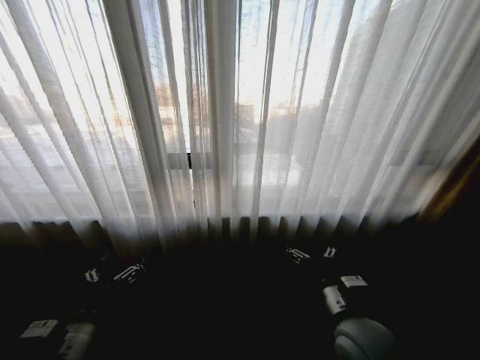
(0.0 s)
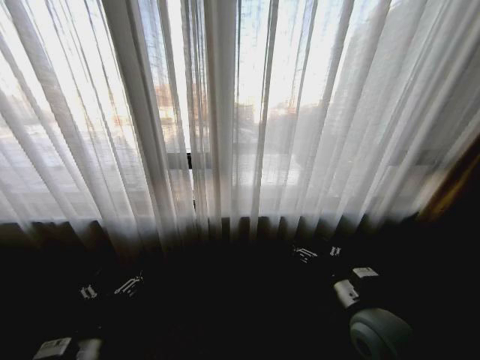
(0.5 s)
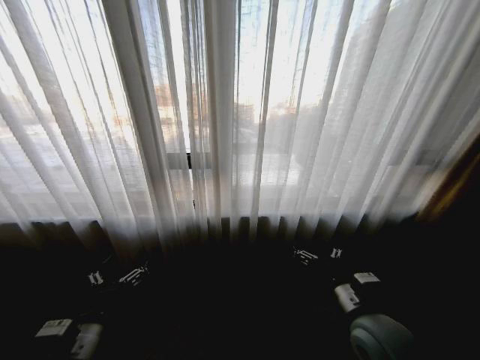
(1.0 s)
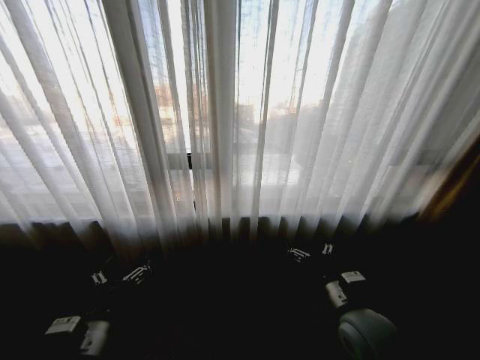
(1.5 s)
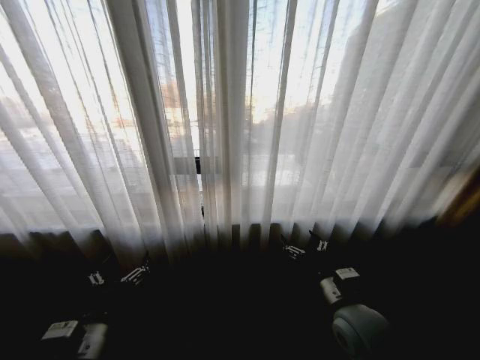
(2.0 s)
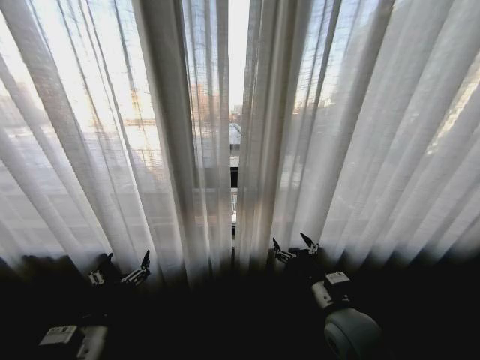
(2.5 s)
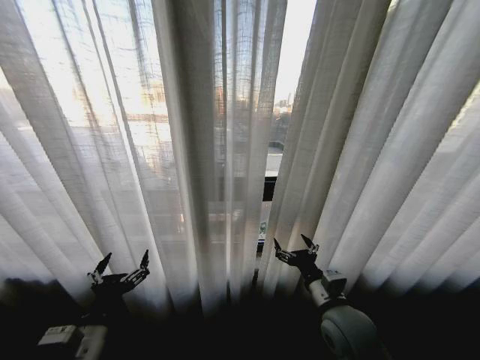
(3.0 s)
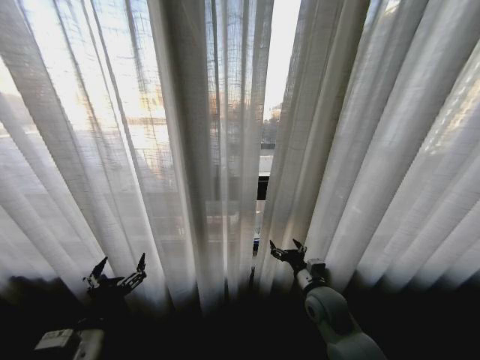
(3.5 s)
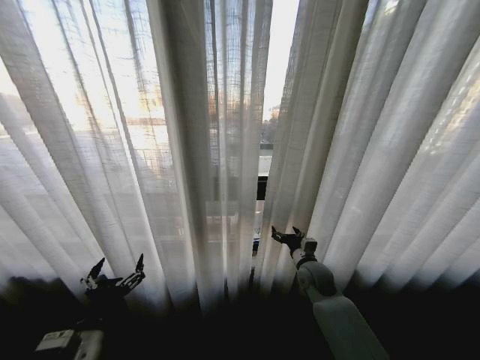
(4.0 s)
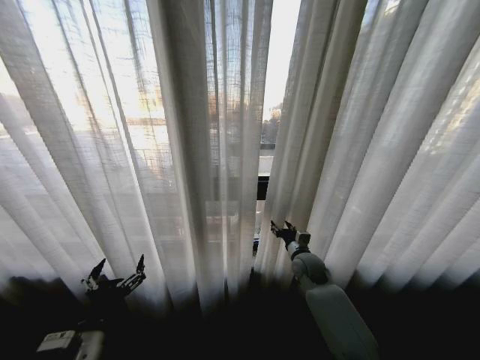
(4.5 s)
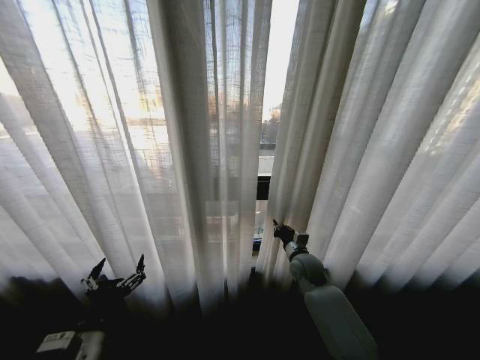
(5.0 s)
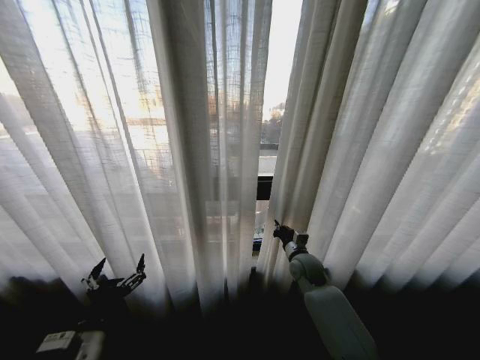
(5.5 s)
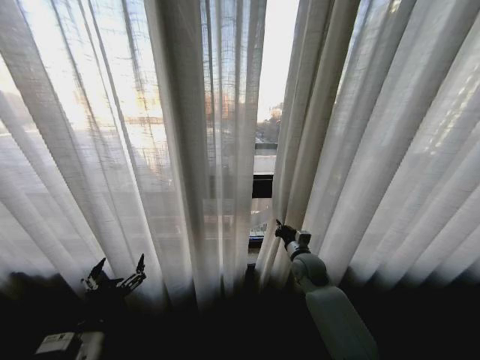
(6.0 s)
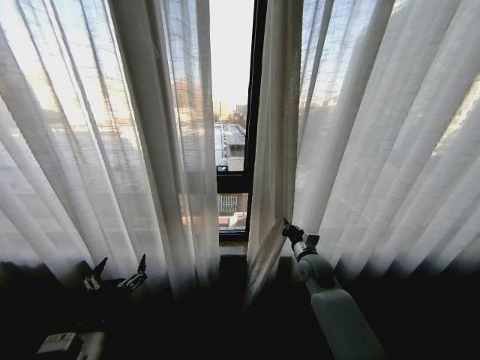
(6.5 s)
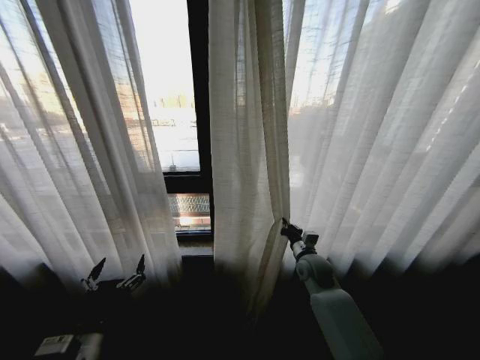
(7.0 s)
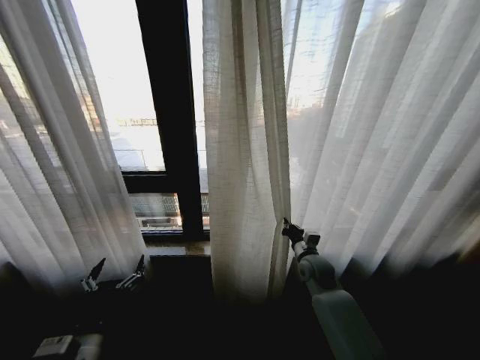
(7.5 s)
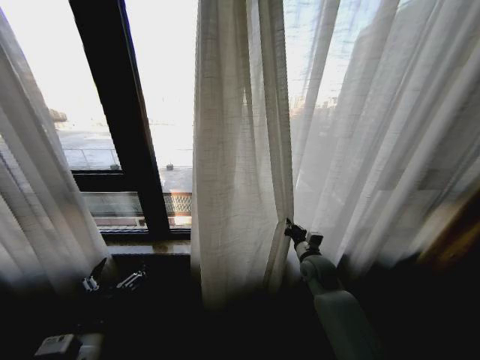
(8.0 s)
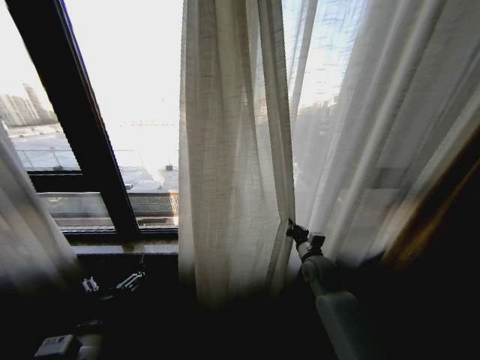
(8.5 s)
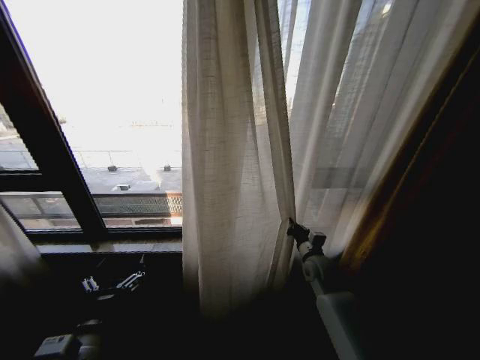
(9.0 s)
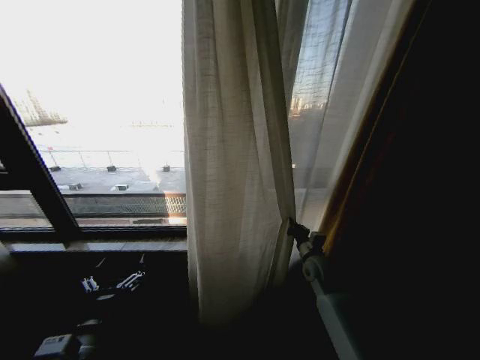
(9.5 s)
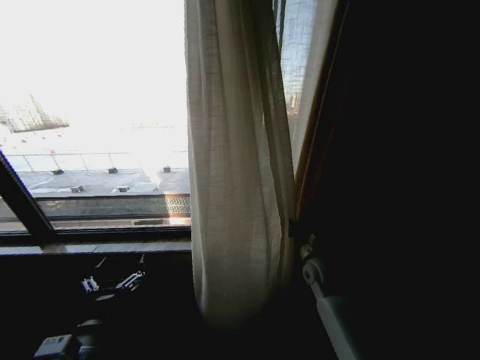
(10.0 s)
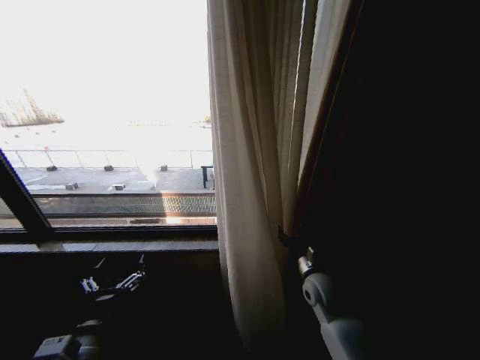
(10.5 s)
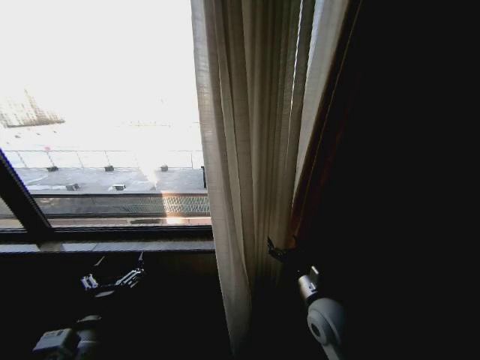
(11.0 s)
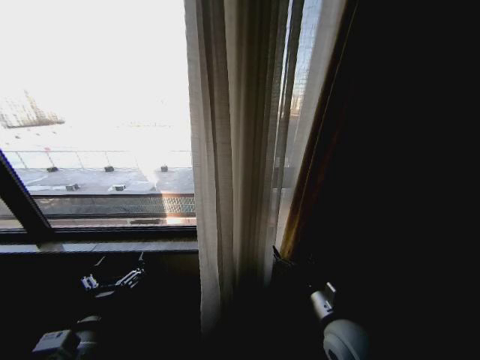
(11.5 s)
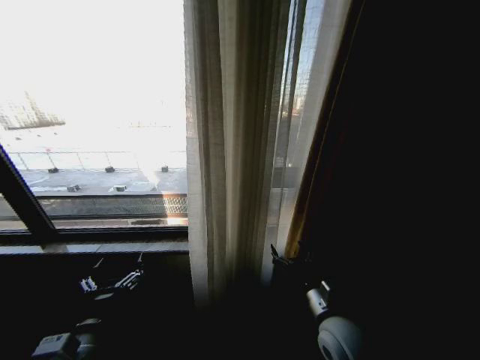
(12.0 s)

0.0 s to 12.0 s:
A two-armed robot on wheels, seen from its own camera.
Task of the whole recording: Open the curtains by pulling them apart, changing their state from closed to fully open.
2.0 to 4.0 s: The right gripper travels forward and downward by approximately 20 cm.
4.0 to 6.0 s: The right gripper closes up.
10.0 to 12.0 s: The right gripper is displaced backward by about 20 cm, and opens its fingers.

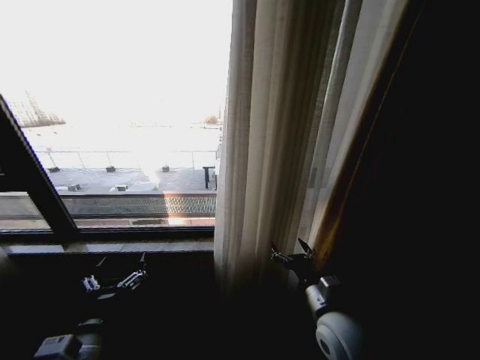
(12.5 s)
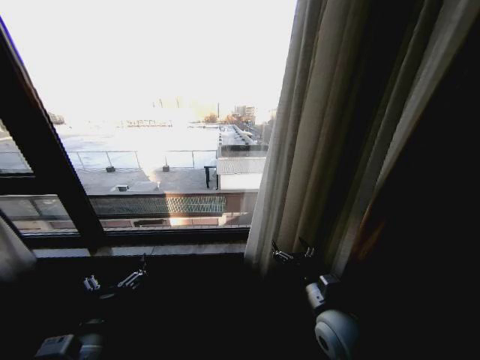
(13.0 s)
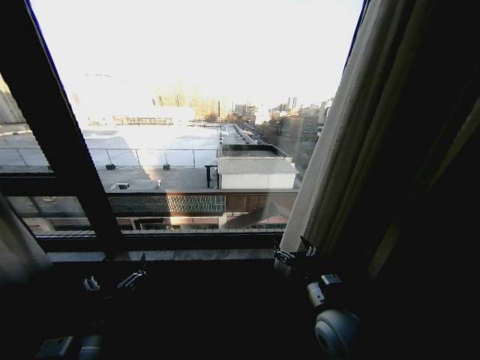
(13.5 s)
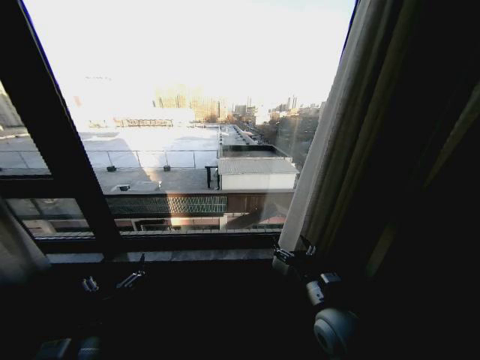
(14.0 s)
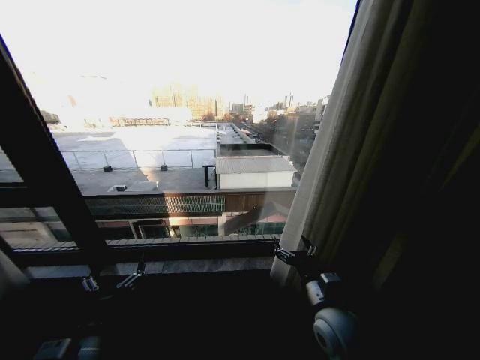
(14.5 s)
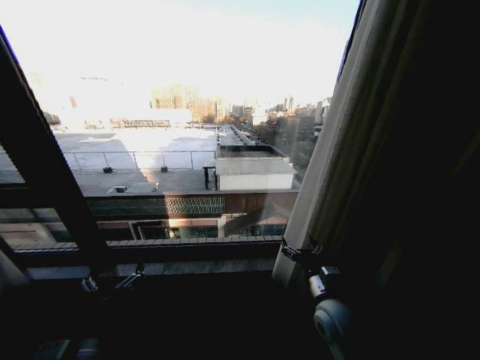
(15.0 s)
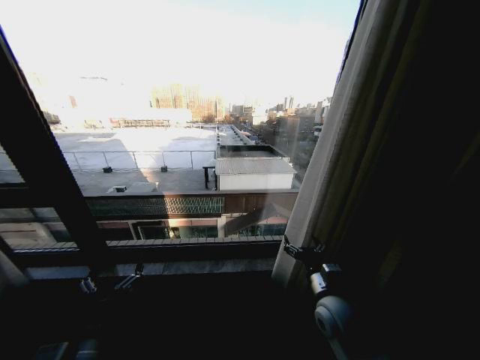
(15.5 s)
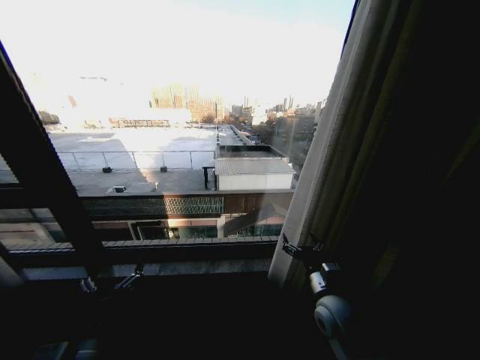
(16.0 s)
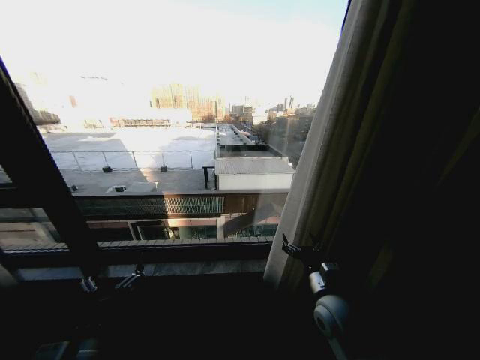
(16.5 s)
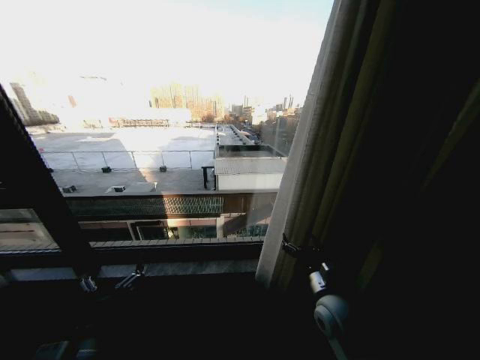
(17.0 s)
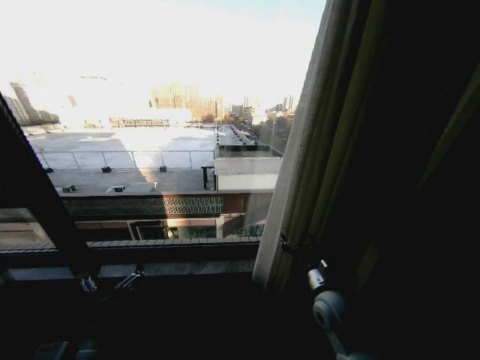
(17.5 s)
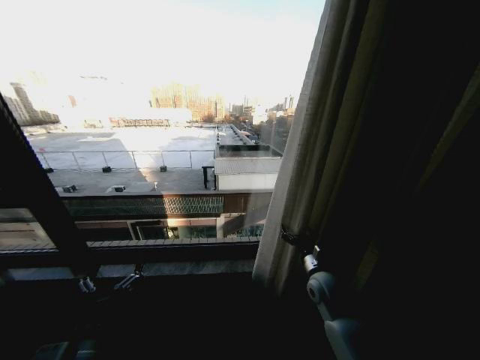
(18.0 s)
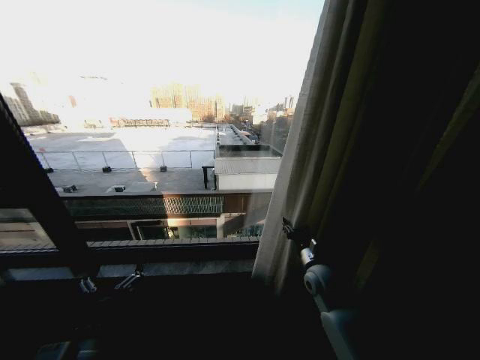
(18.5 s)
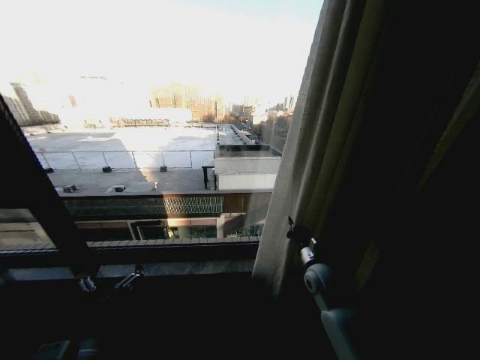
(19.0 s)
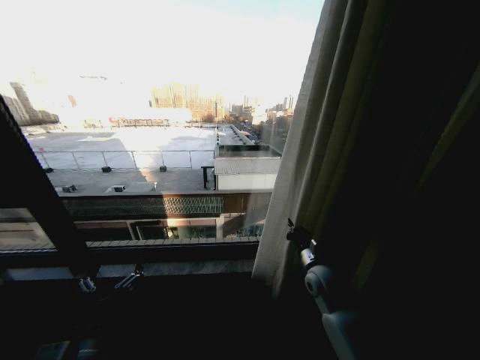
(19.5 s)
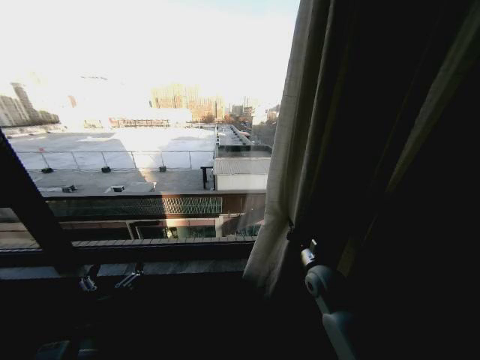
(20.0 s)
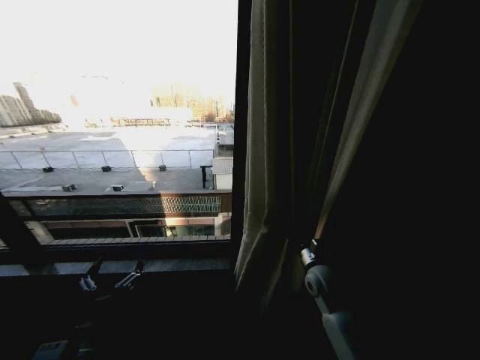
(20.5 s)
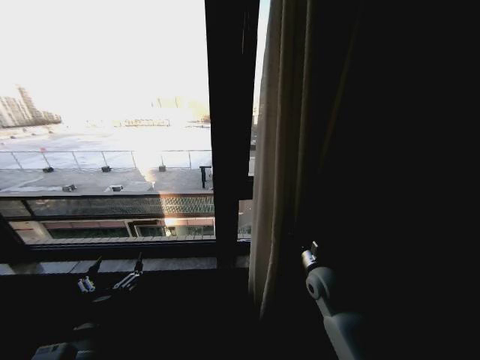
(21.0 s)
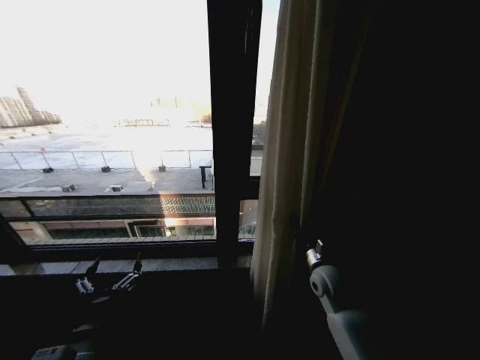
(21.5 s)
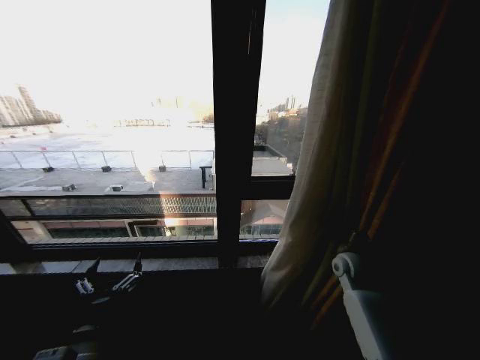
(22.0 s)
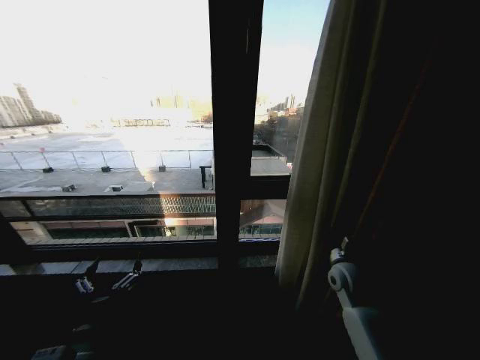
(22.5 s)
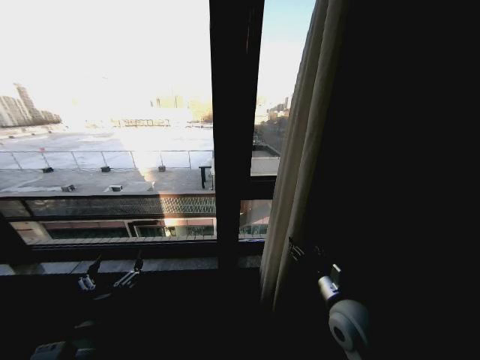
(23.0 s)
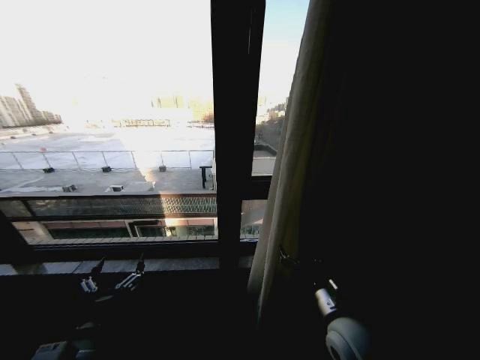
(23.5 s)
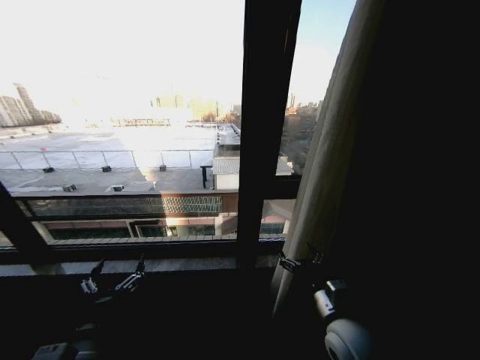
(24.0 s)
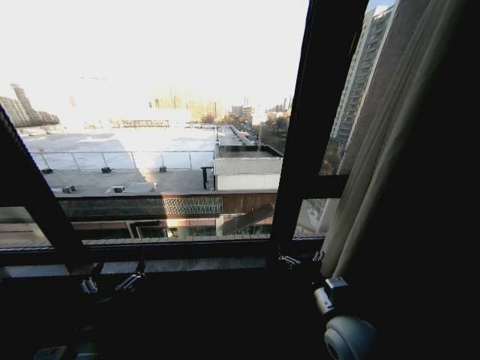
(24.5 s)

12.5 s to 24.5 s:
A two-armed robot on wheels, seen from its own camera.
Task of the whole recording: Open the curtains by pulling them apart, changing their state from closed to fully open.
14.5 to 16.5 s: The grippers make only small movements.
16.5 to 18.5 s: The right gripper shifts about 10 cm forward, and closes.
18.5 to 20.5 s: The right gripper closes.
20.5 to 22.5 s: The right gripper heads to the right, covering some 10 cm.
22.5 to 24.5 s: The right gripper travels backward and to the left by roughly 20 cm, and opens.

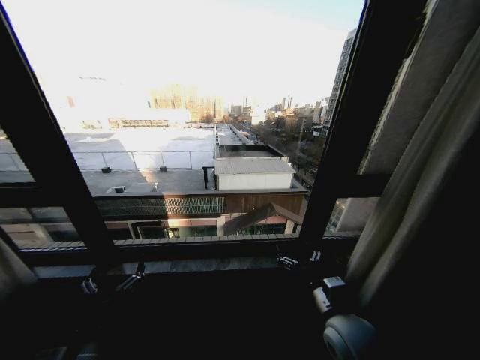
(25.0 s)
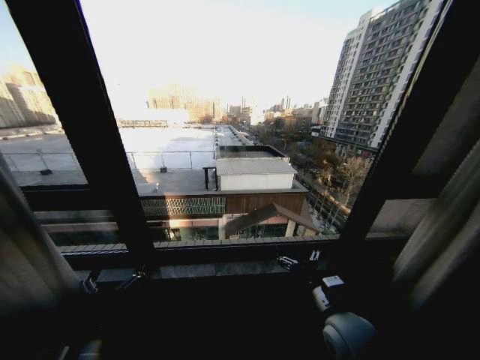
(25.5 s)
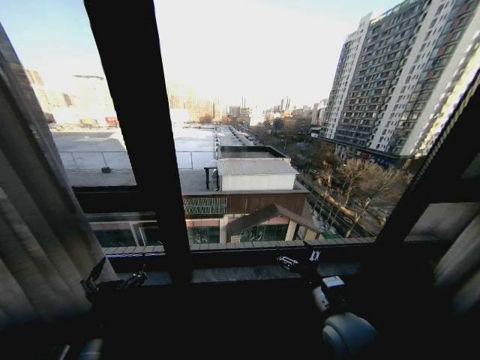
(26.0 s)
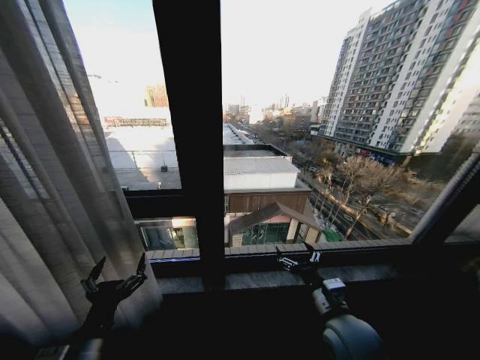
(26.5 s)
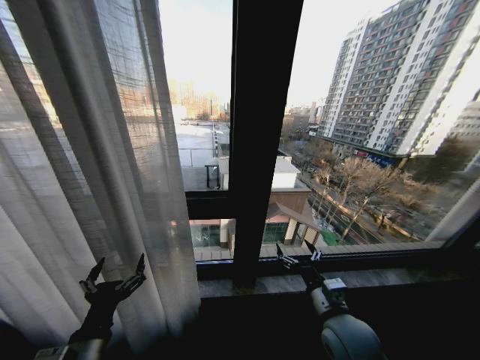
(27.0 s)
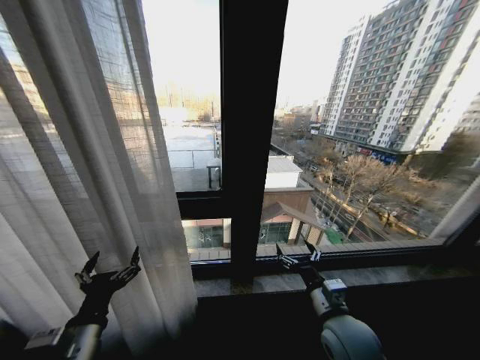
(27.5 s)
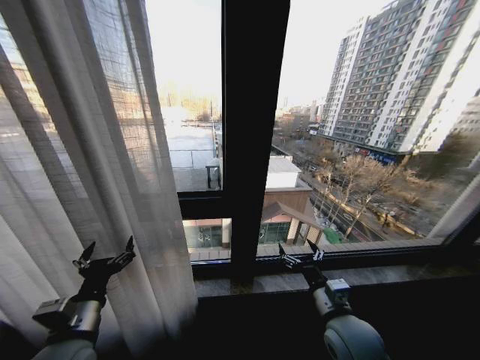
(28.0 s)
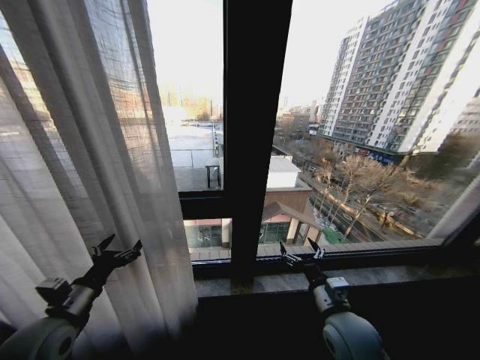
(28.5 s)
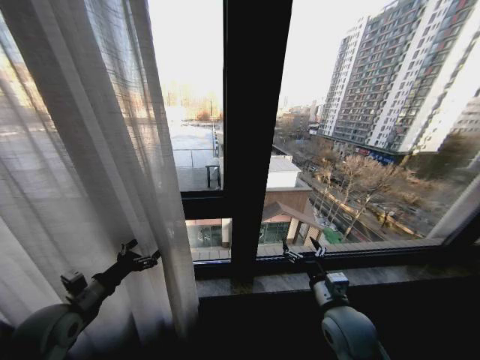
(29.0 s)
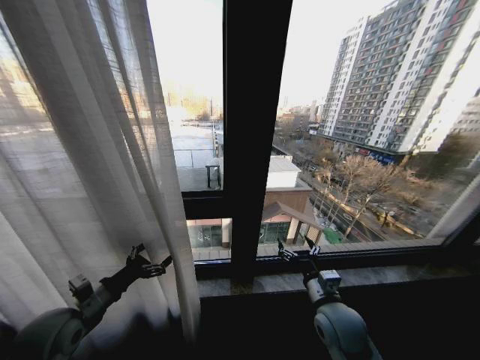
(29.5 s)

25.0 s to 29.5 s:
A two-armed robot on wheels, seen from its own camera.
Task of the whole recording: Open the curtains by pulling them apart, changing their state from closed to fully open.
27.0 to 29.5 s: The left gripper travels forward and to the left by about 15 cm.
